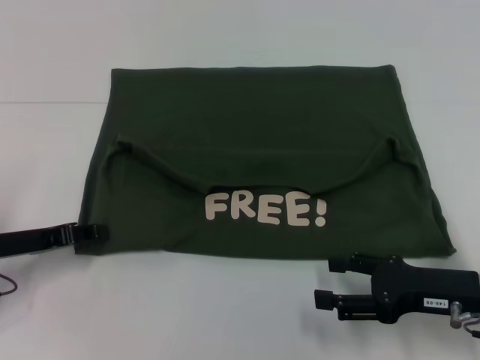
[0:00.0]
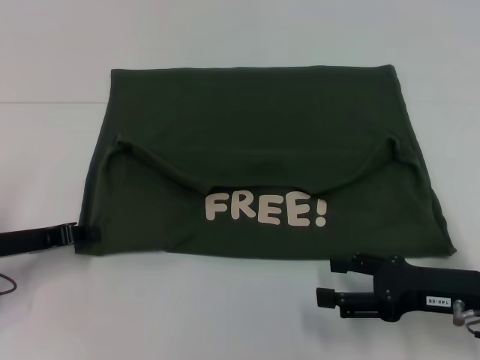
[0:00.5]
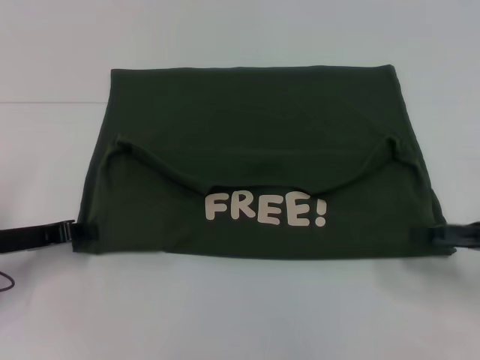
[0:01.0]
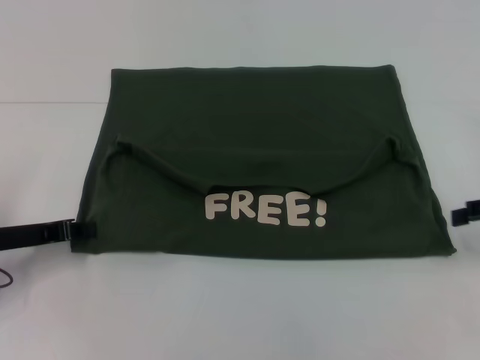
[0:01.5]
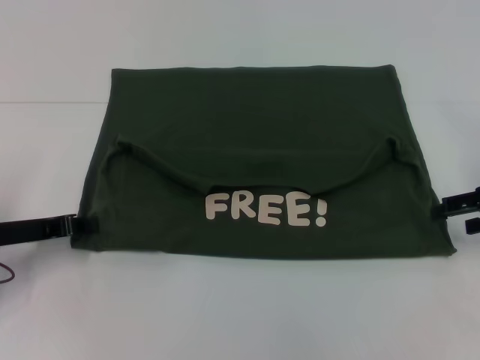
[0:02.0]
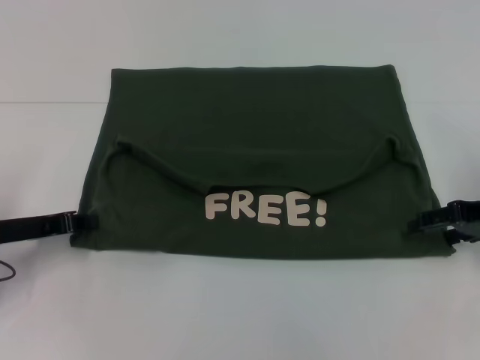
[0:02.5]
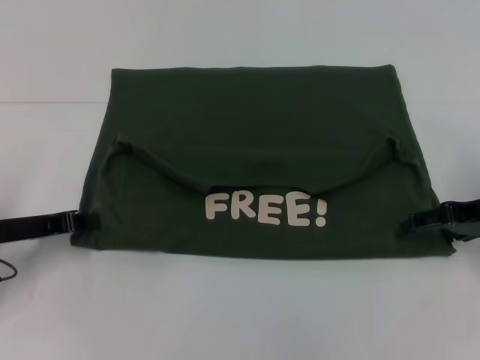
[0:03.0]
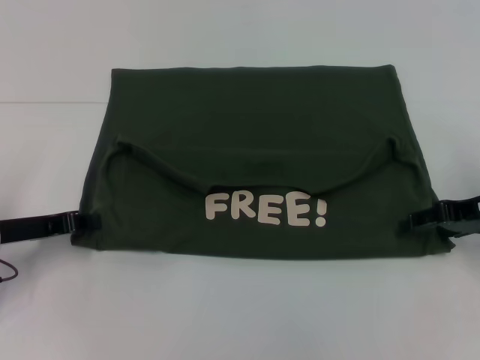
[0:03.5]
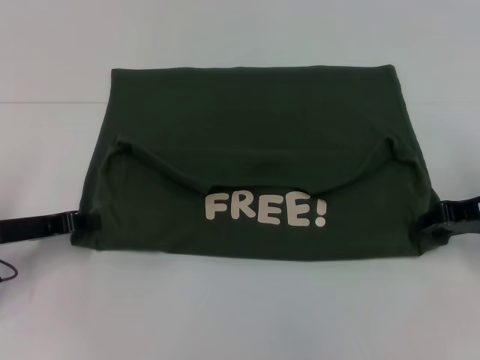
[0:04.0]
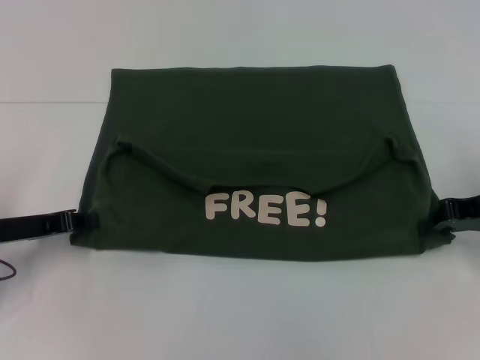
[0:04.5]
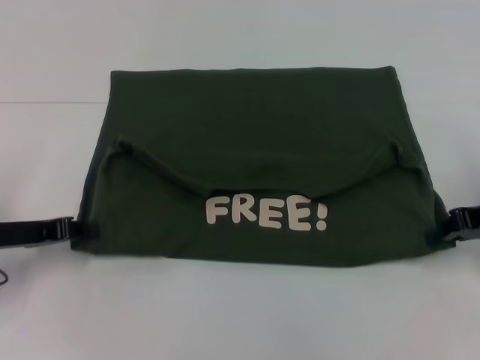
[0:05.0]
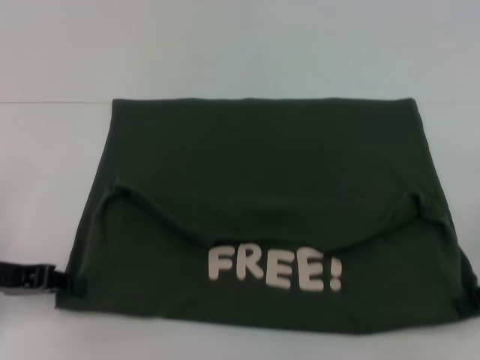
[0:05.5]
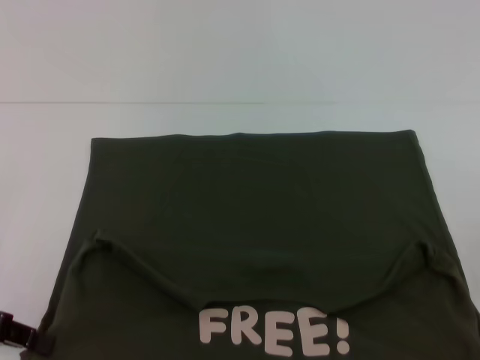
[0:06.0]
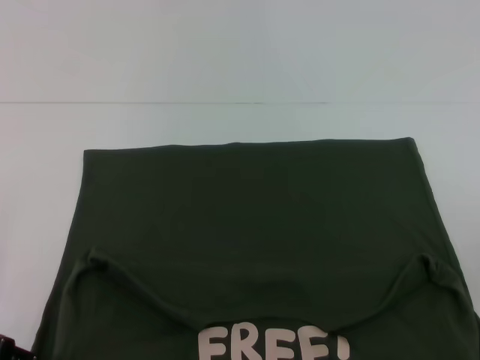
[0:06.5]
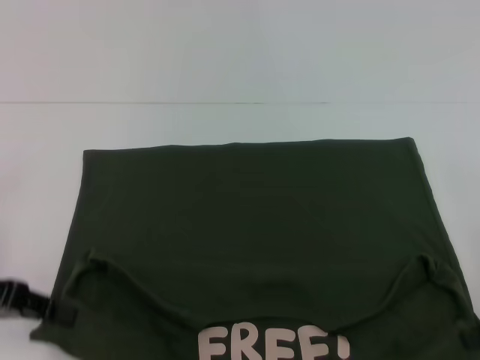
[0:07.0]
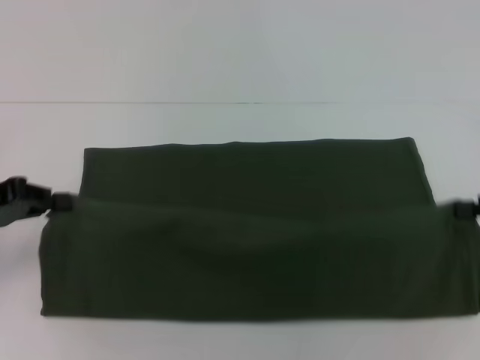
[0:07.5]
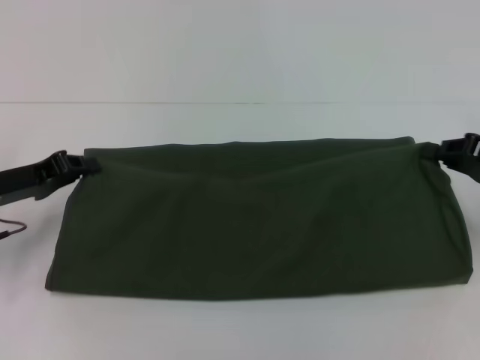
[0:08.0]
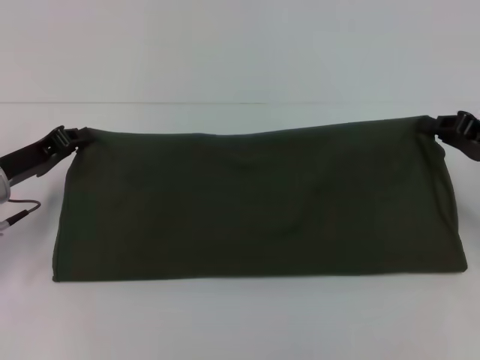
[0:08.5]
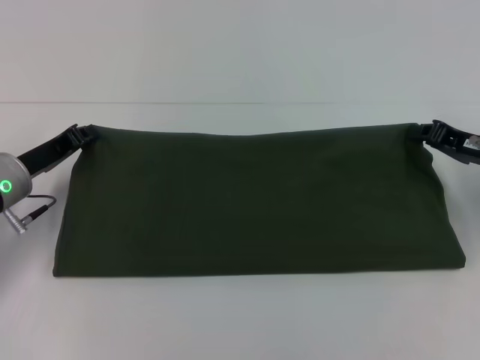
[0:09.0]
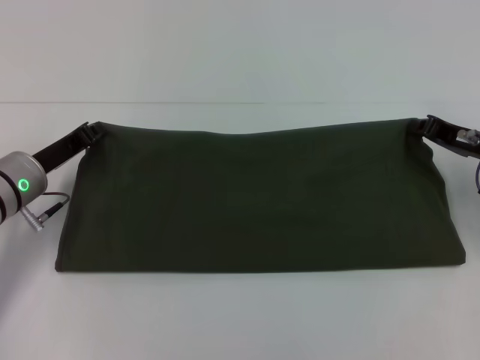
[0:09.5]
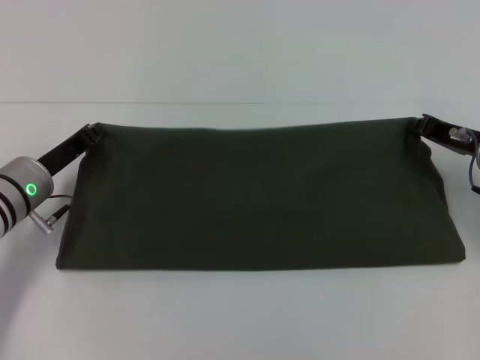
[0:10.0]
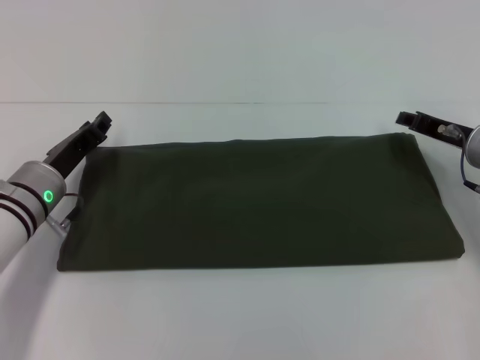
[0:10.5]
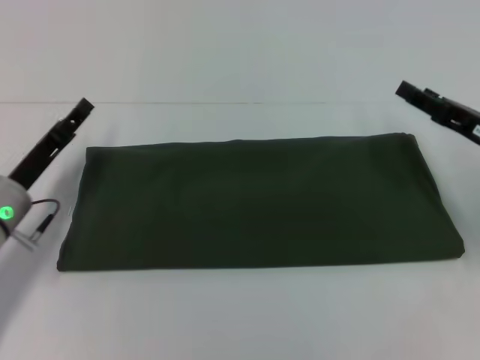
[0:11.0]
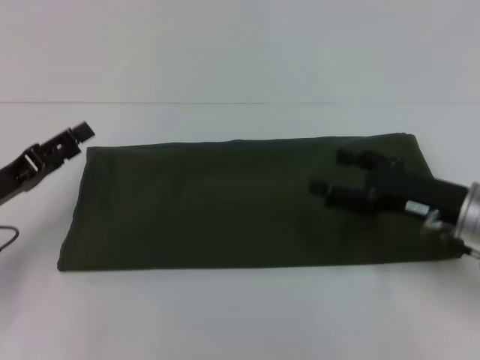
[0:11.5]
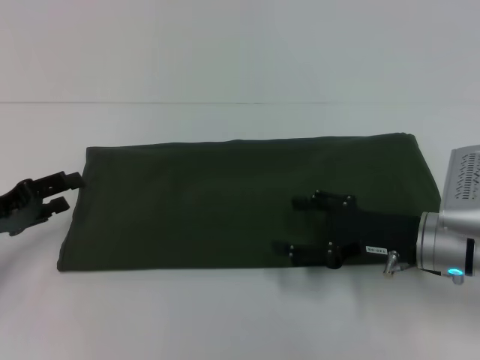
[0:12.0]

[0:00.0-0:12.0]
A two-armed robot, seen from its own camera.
Step, 0:00.0 to 0:05.5: Pull the clothes with your left hand.
Step, 0:00.0 to 0:05.5: Pull the clothes with your right hand.
Step, 0:06.0 to 0:10.5: Fold the clothes with your right hand.
0:00.0 to 0:02.0: The left gripper closes. Meanwhile the right gripper shifts about 15 cm forward, to the right and upward.
0:02.0 to 0:04.0: The right gripper closes.
0:04.0 to 0:06.0: The right gripper moves backward, approximately 10 cm, and closes its fingers, while the left gripper goes roughly 10 cm backward and upward.
0:06.0 to 0:08.0: Both grippers move forward, about 5 cm.
0:08.0 to 0:10.0: The right gripper heads to the left and forward, covering some 10 cm; the left gripper is displaced to the right by approximately 5 cm.
0:10.0 to 0:12.0: The right gripper travels backward and to the left by about 10 cm, and opens its fingers. The left gripper shifts roughly 10 cm to the left and backward, and opens up.

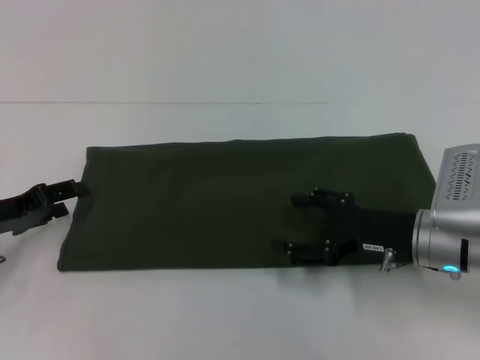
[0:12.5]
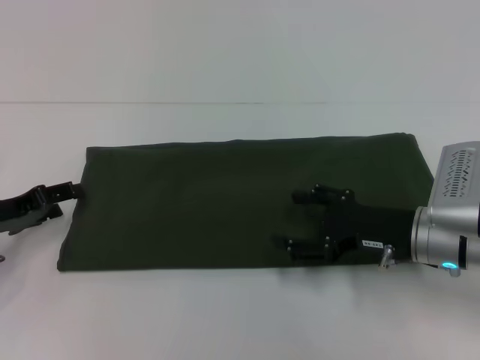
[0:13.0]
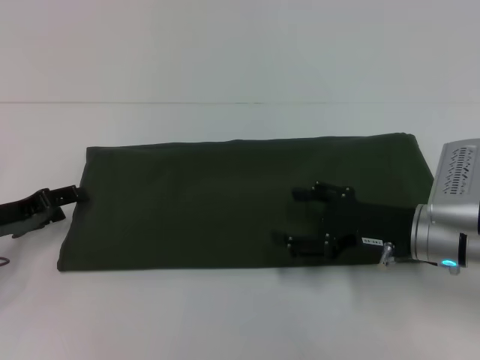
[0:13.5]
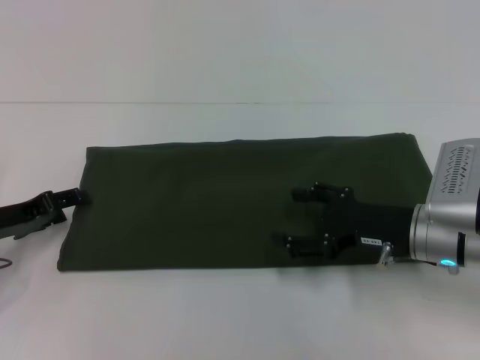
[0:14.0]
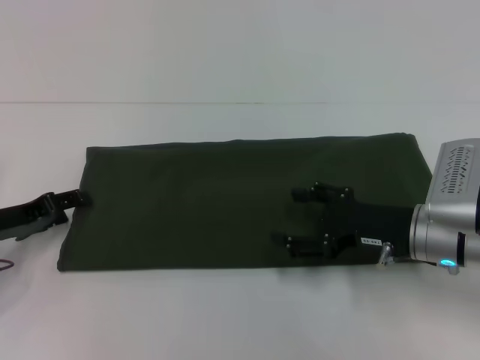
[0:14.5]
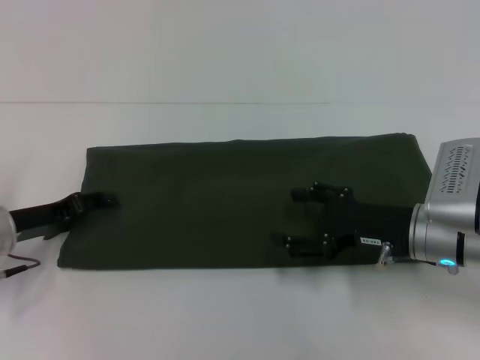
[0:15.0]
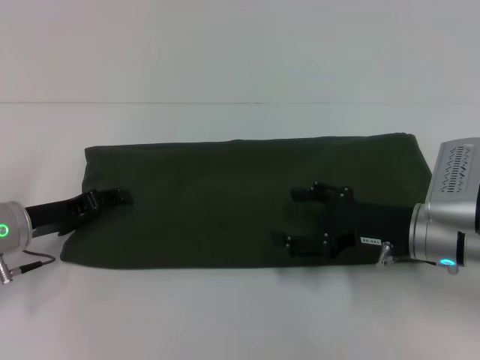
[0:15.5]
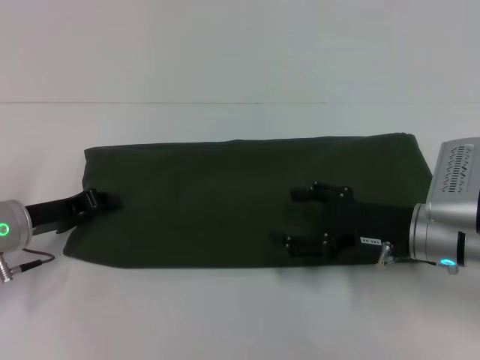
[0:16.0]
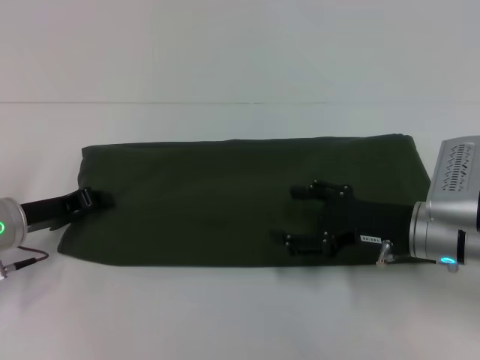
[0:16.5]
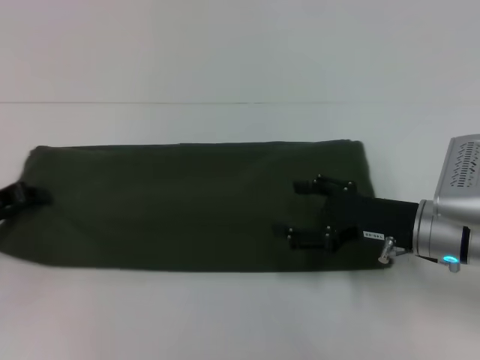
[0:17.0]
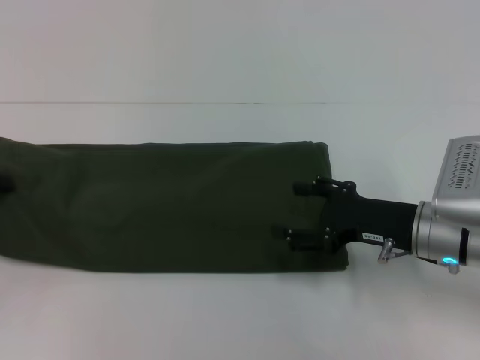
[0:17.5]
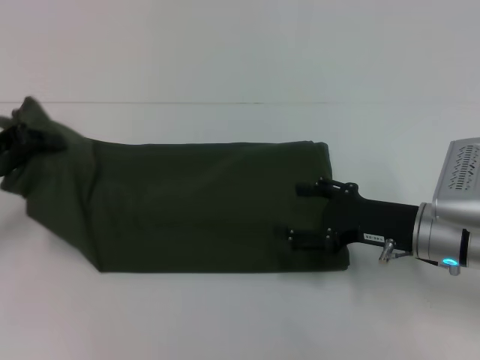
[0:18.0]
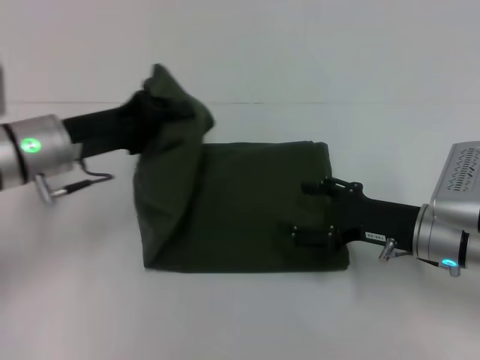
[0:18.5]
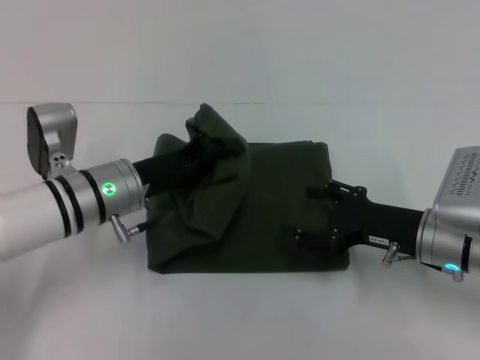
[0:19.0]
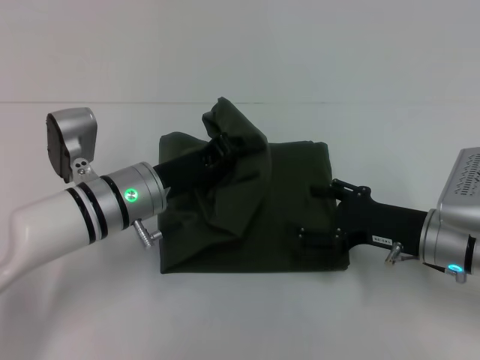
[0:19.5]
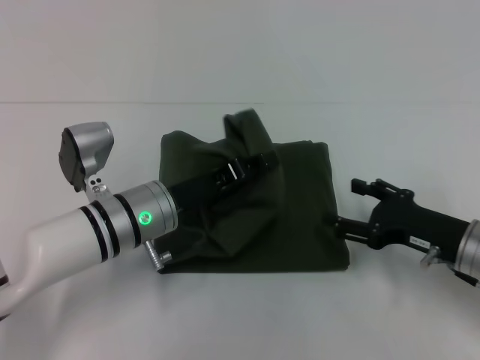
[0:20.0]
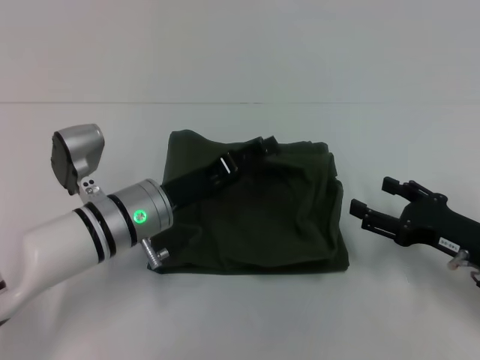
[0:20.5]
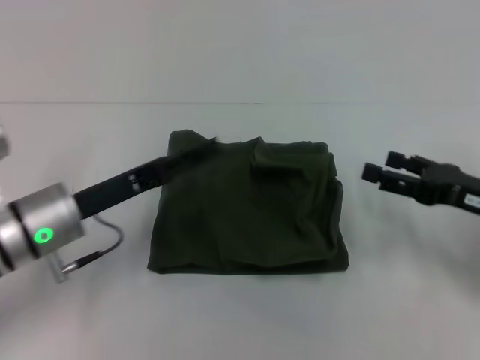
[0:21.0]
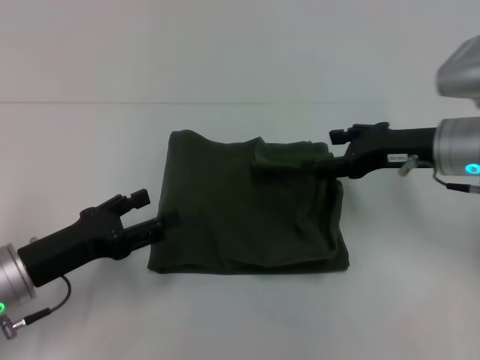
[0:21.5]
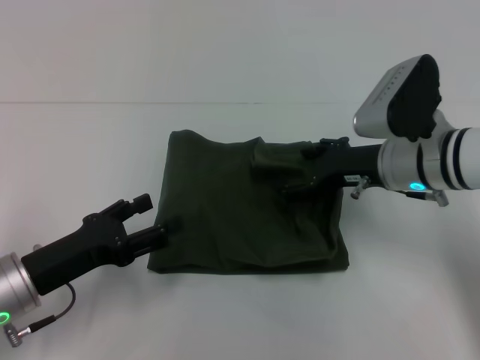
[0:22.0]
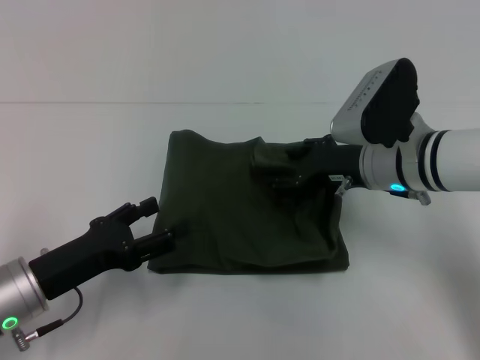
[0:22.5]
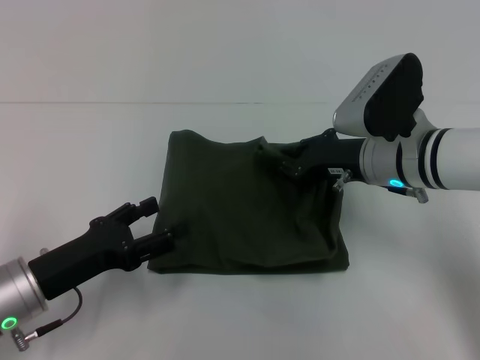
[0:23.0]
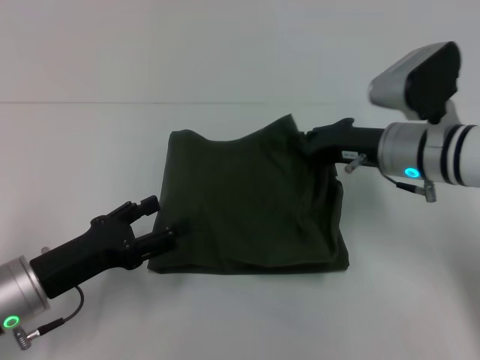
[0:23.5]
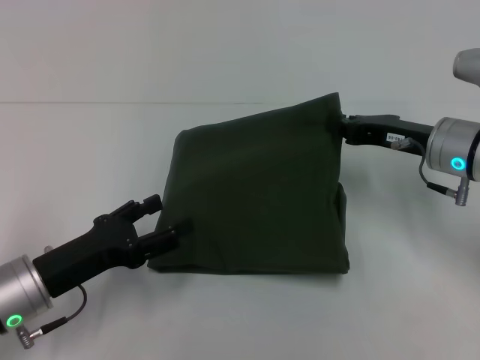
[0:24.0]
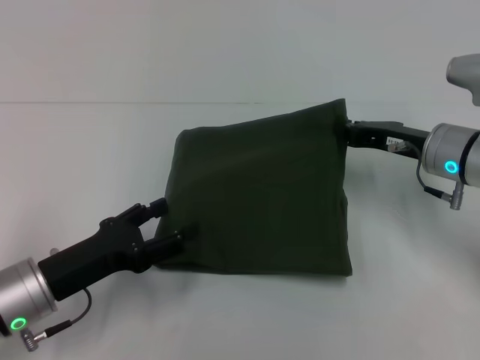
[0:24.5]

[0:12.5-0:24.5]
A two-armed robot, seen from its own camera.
Step, 0:12.5 to 0:20.5: Fold the clothes with your left hand.
0:12.5 to 0:14.5: The grippers stay close to where they were, moving slightly.
0:14.5 to 0:16.5: The left gripper closes.
0:16.5 to 0:18.5: The left gripper is displaced upward and to the right by roughly 10 cm.
0:18.5 to 0:20.5: The right gripper is displaced to the right by roughly 5 cm. The left gripper heads to the right and downward, covering approximately 10 cm, and opens its fingers.
0:20.5 to 0:22.5: The right gripper is displaced to the left, forward and upward by roughly 15 cm; the left gripper travels to the left and backward by approximately 15 cm, and opens its fingers.
0:22.5 to 0:24.5: The right gripper moves to the right, approximately 5 cm, and closes its fingers.

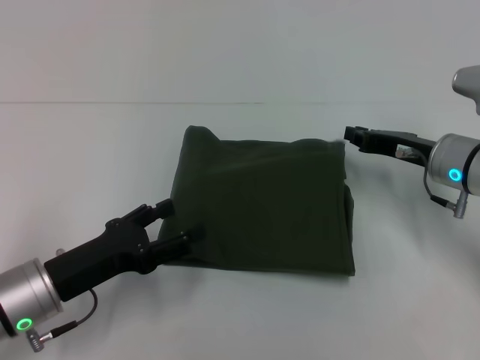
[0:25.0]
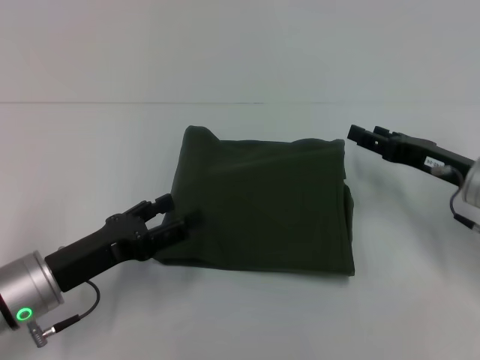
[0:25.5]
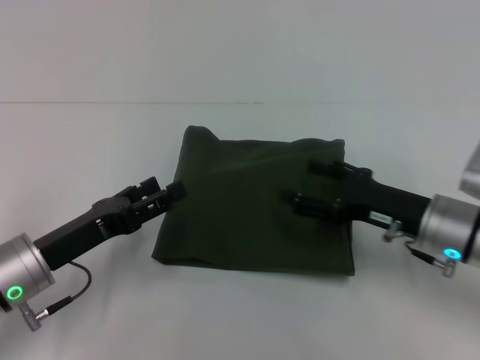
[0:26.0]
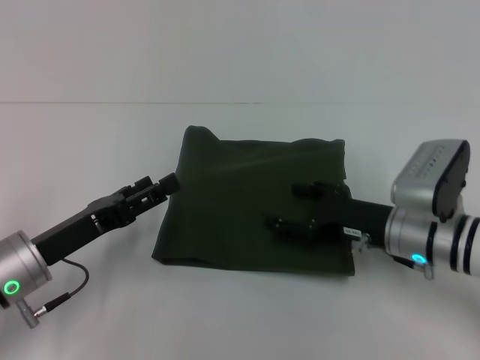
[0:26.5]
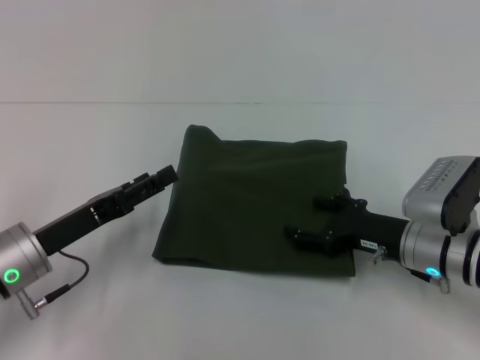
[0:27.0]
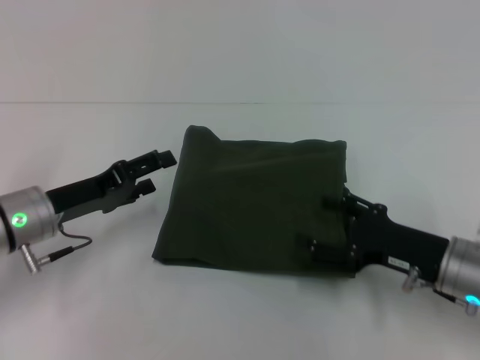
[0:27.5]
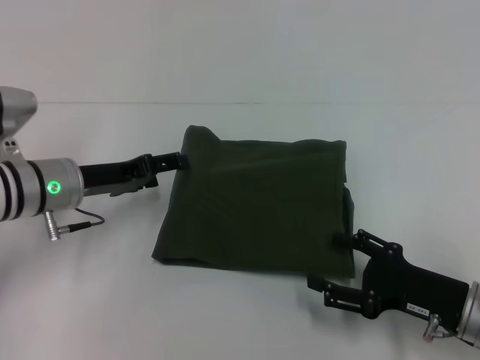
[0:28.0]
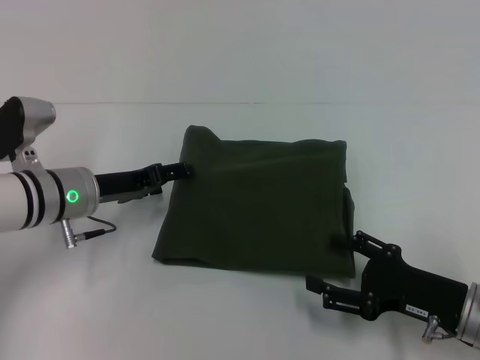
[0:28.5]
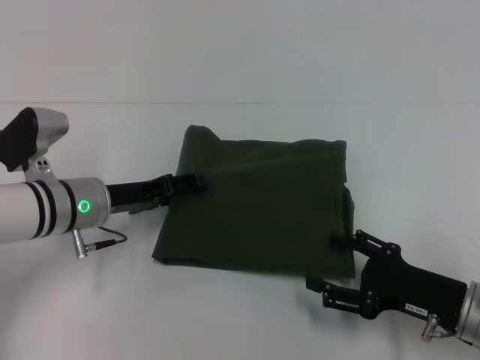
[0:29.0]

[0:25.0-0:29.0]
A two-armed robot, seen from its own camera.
0:25.0 to 0:27.0: The right gripper shifts about 10 cm backward and downward, and opens.
0:27.0 to 0:29.0: The left gripper goes approximately 10 cm forward; the right gripper is displaced backward by roughly 10 cm.
